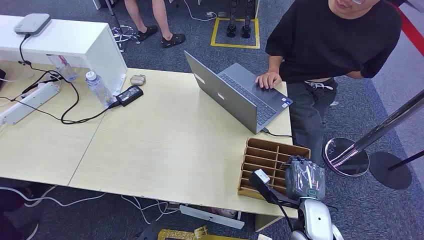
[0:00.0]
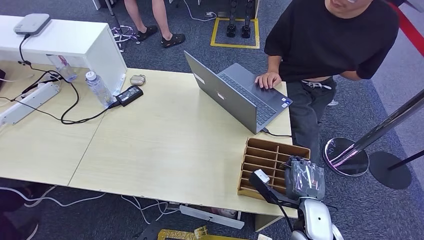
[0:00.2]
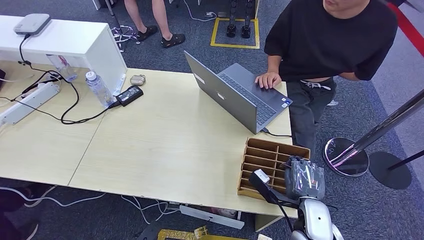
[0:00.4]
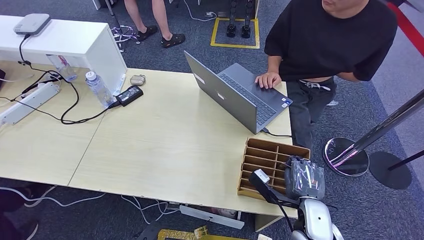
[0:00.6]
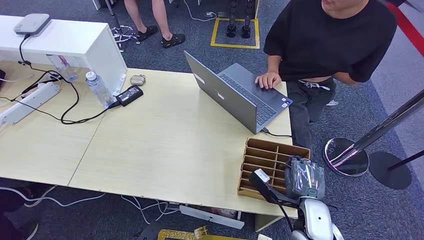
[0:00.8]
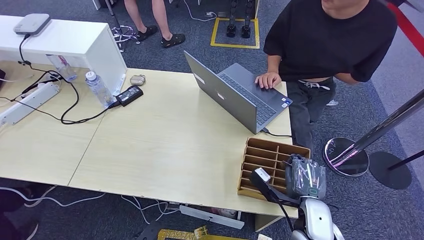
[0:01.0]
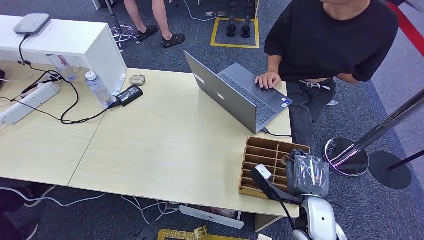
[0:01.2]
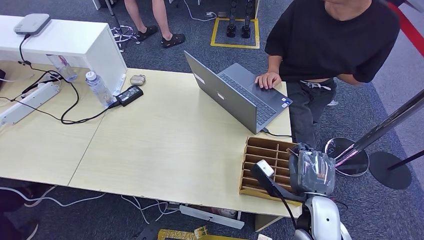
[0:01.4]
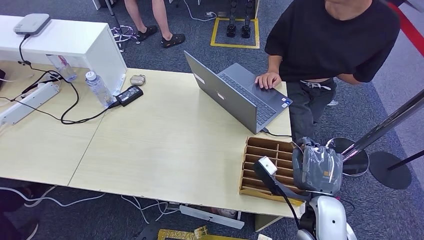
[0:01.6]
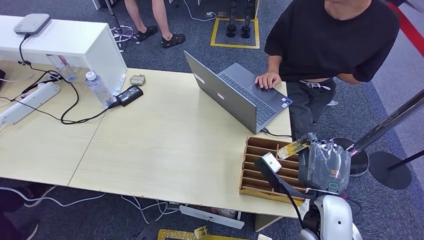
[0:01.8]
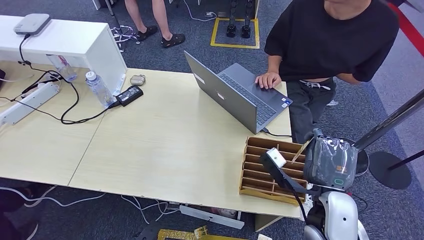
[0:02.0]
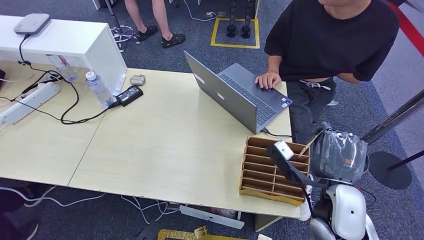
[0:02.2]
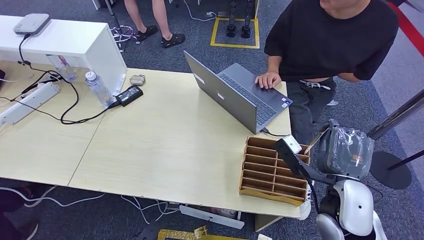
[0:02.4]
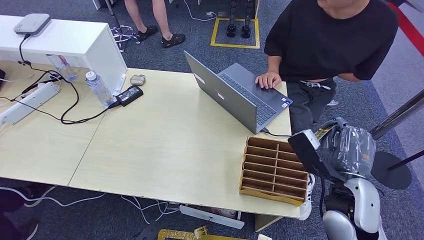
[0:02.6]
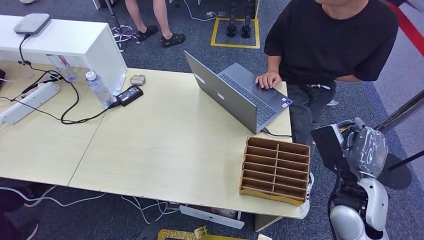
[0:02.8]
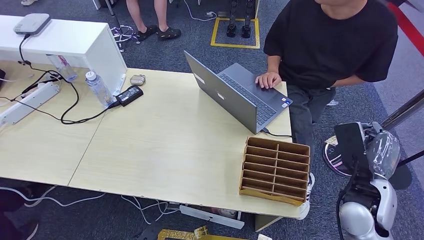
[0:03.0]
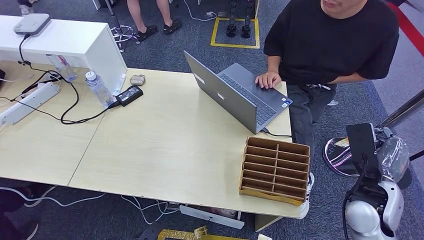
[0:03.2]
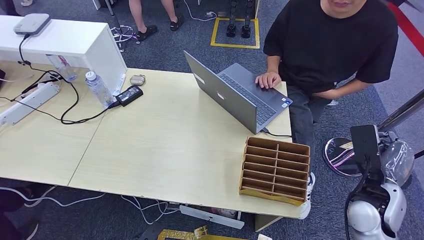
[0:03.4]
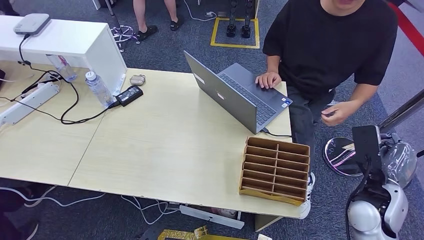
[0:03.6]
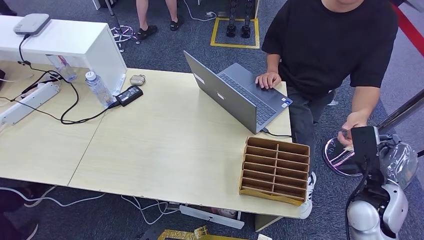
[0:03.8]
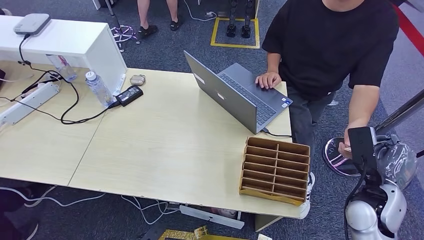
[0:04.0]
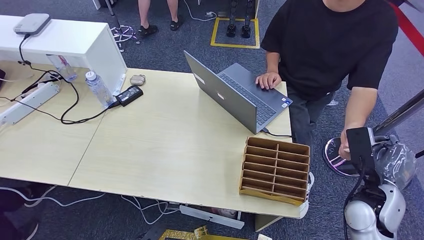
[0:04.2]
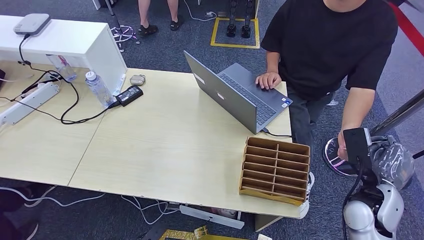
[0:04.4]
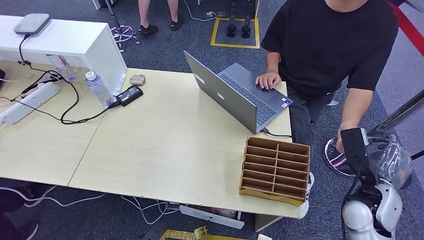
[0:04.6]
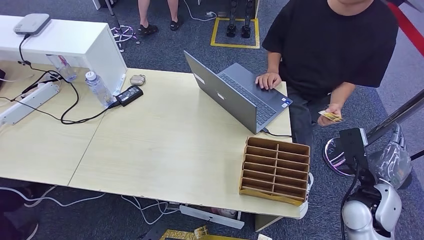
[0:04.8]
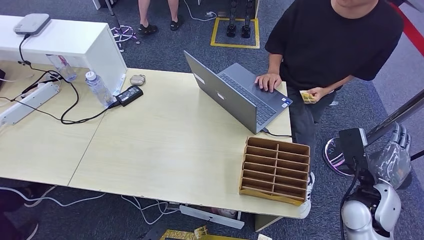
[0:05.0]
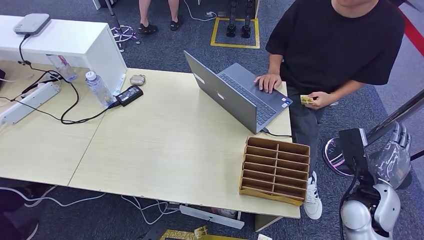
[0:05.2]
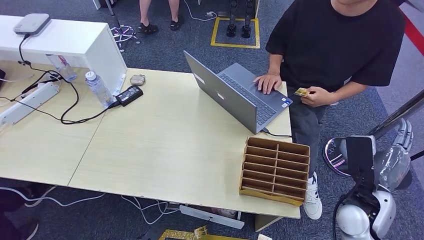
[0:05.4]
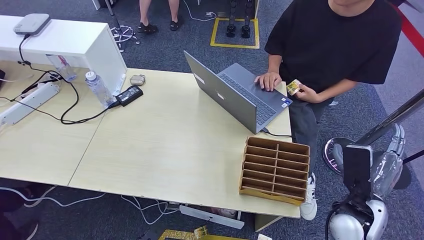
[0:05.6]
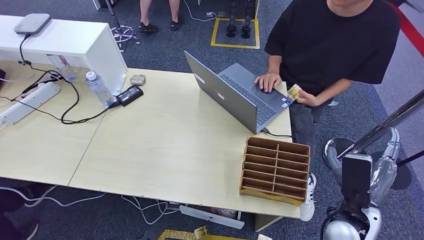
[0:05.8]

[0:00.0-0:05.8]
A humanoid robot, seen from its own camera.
Step, 0:00.0 to 0:01.4: Pick up the room card from the card holder.
Step, 0:01.6 to 0:05.8: Hand the room card to the target.
0:01.4 to 0:02.8: The right hand is displaced to the right and upward by approximately 10 cm.
0:02.8 to 0:04.4: The right hand moves to the right, about 5 cm.
0:04.4 to 0:05.8: The right hand travels to the left by approximately 5 cm.

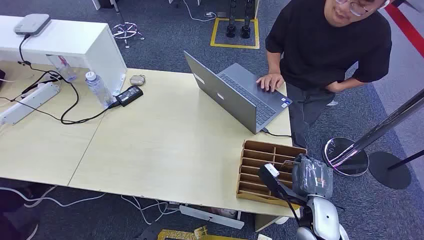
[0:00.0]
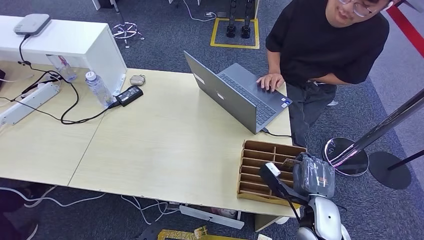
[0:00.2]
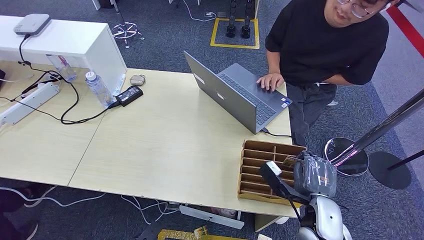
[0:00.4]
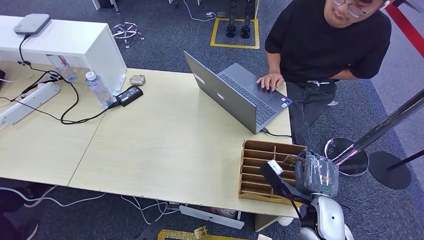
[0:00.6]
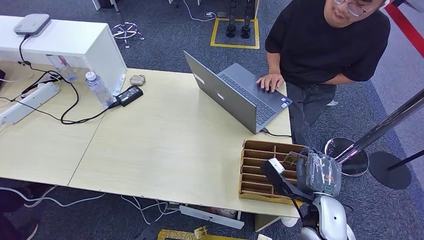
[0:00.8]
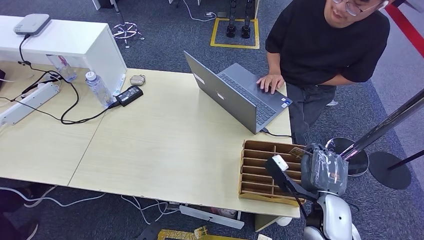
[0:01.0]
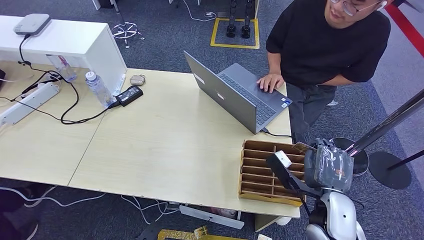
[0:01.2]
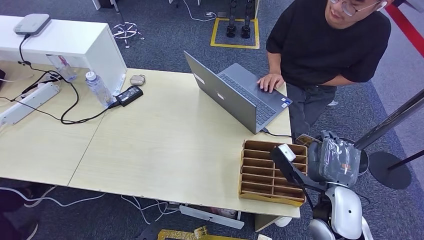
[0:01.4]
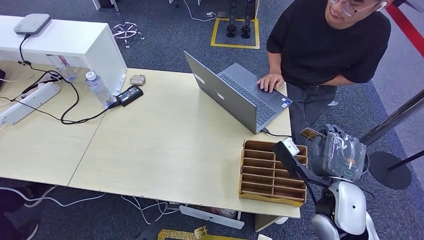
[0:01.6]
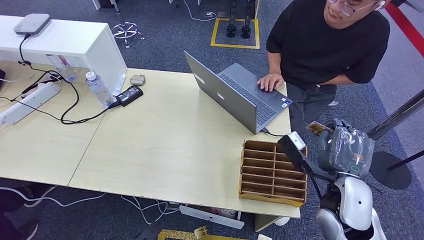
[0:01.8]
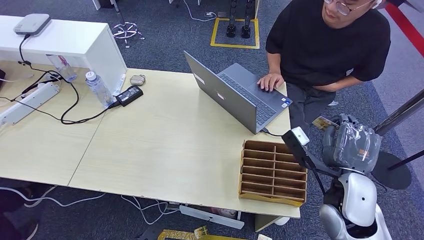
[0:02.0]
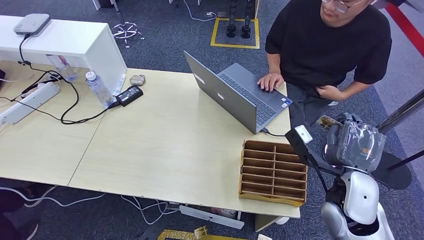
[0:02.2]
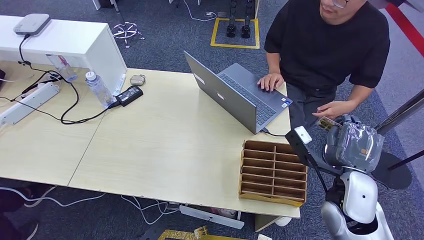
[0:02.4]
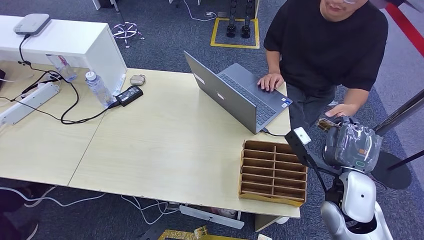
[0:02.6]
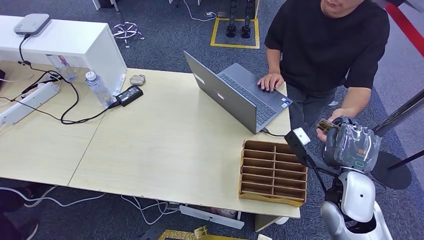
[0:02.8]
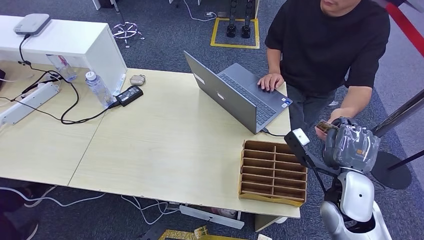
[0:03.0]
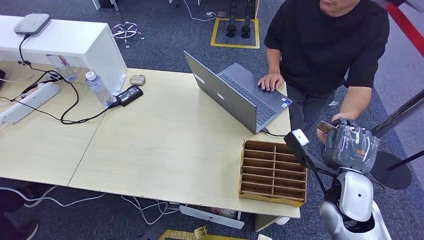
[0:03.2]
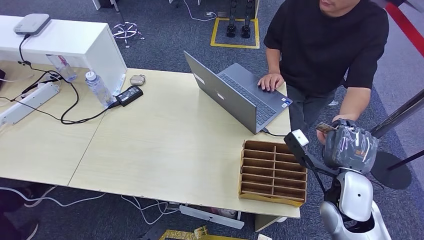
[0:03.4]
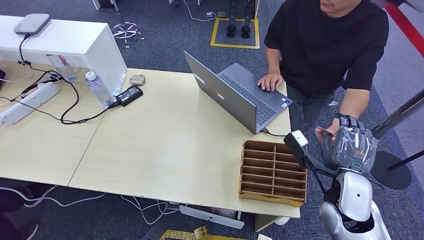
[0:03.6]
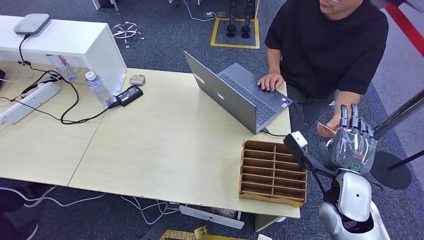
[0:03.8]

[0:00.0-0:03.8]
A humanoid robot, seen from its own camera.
Step, 0:00.0 to 0:01.8: Pick up the room card from the card holder.
Step, 0:02.0 to 0:03.8: Hand the room card to the target.
0:01.2 to 0:02.6: The right hand moves approximately 5 cm.
0:02.6 to 0:03.8: There are only small adjustments of the hands.
